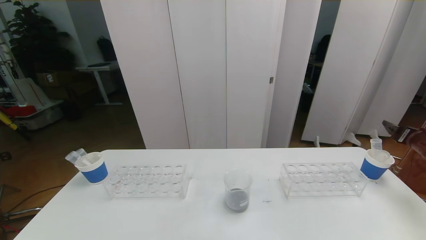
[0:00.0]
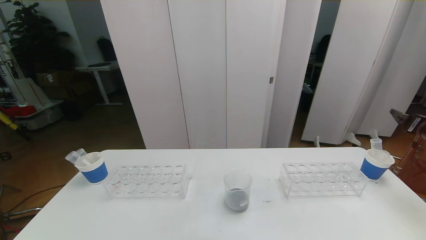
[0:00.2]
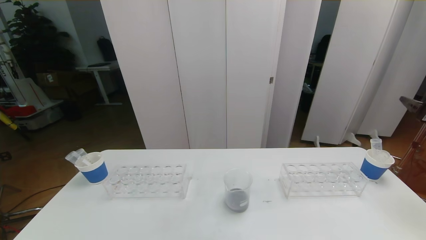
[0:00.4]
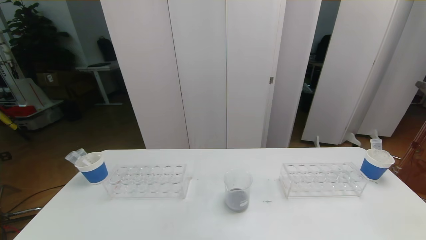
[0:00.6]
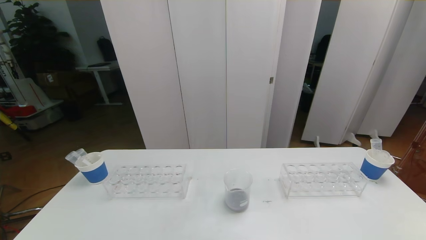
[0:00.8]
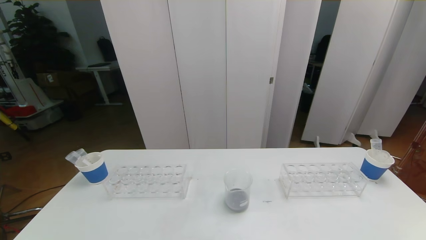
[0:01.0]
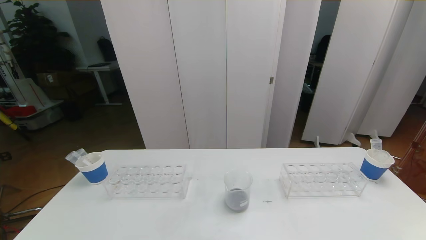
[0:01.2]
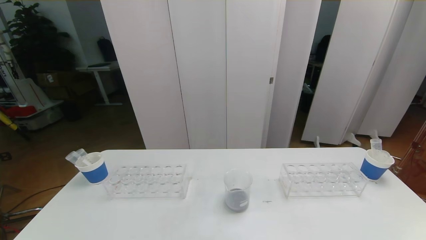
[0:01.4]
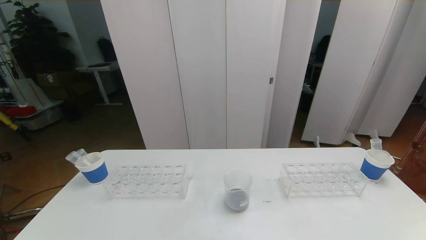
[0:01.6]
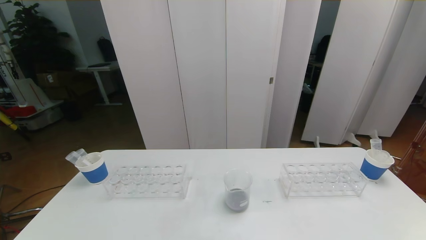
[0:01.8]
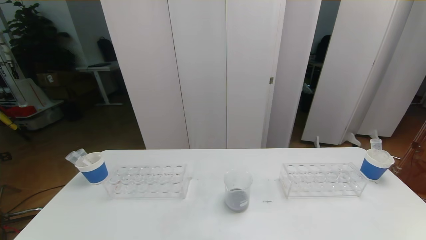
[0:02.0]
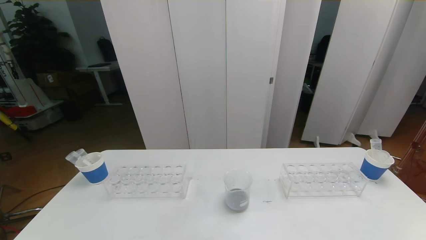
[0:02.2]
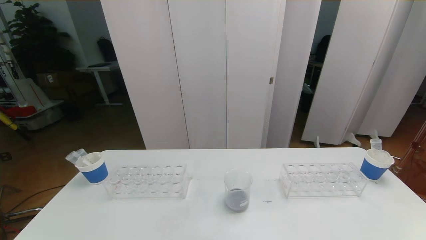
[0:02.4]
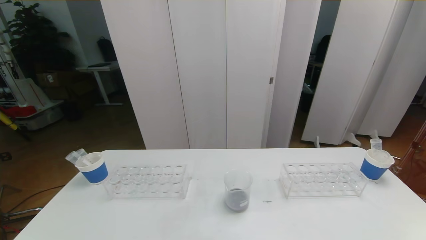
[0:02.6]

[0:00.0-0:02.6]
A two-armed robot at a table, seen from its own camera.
Task of the whole recording: pick up the test tube with red pigment the test tube with blue pigment and the test tube with white pigment by grippers and pour them into the beaker.
0:00.0 to 0:01.2: The right gripper travels backward, upward and to the left by approximately 35 cm.
